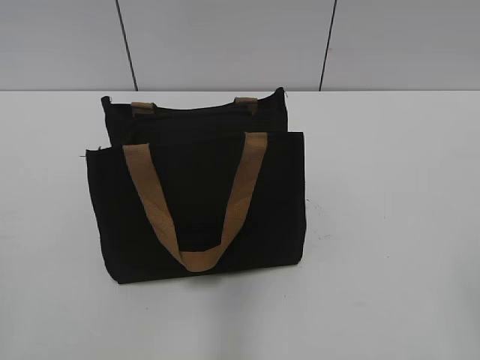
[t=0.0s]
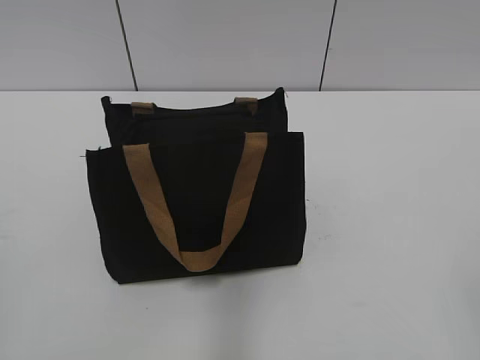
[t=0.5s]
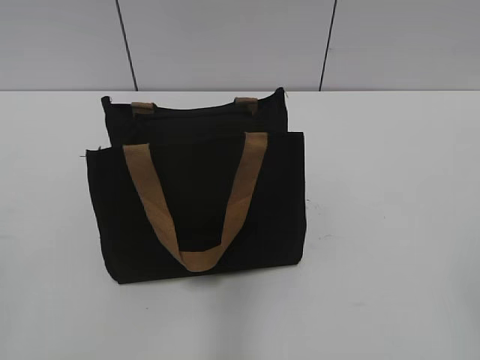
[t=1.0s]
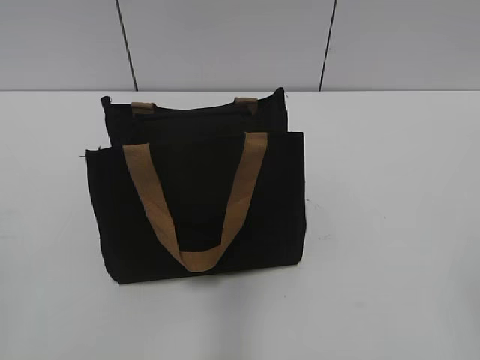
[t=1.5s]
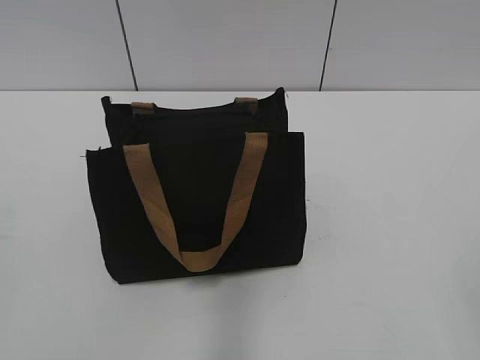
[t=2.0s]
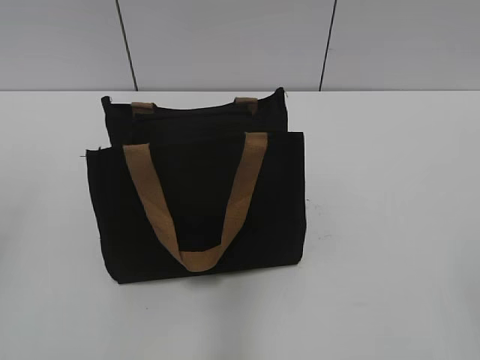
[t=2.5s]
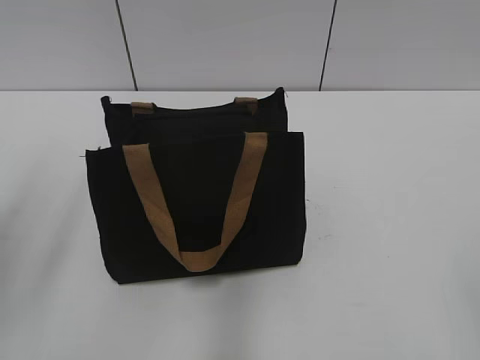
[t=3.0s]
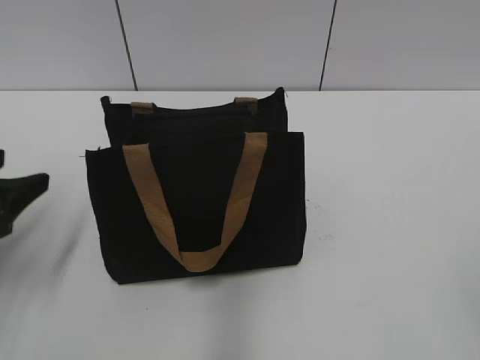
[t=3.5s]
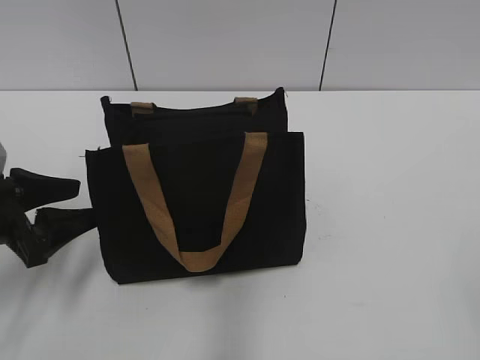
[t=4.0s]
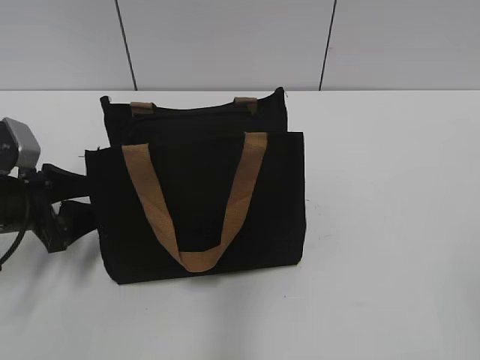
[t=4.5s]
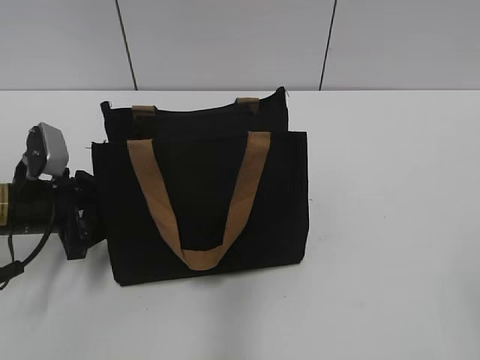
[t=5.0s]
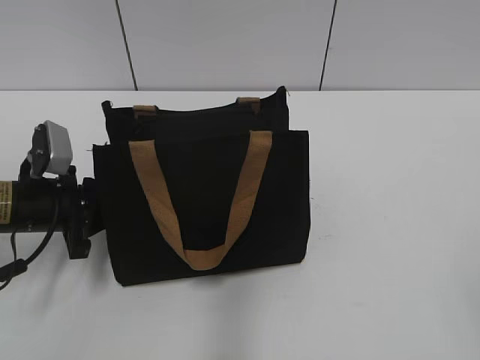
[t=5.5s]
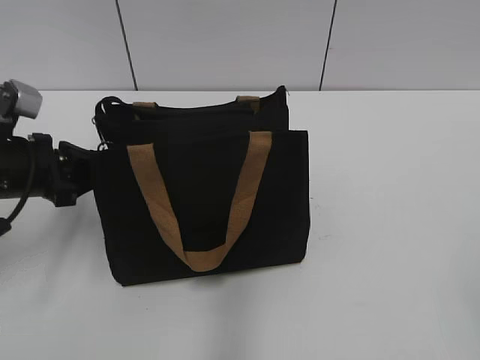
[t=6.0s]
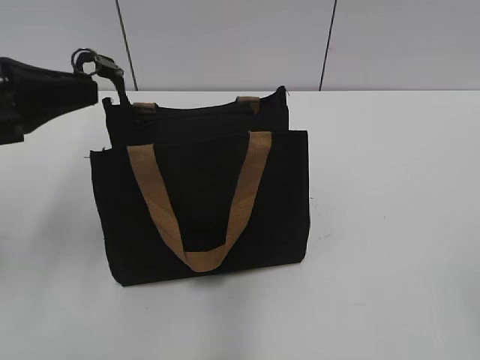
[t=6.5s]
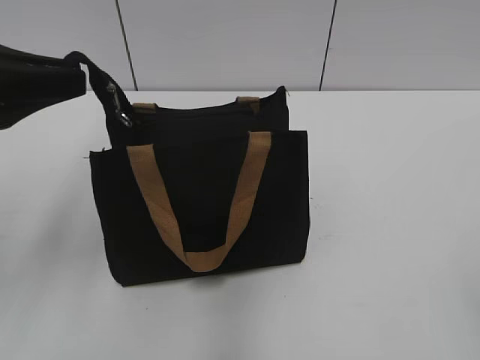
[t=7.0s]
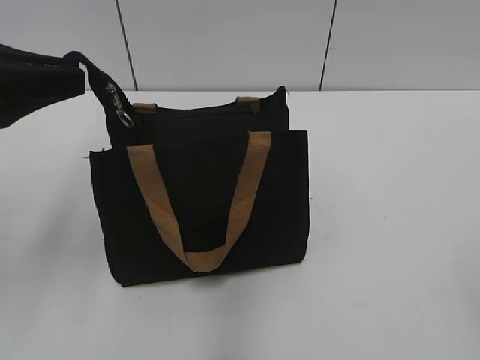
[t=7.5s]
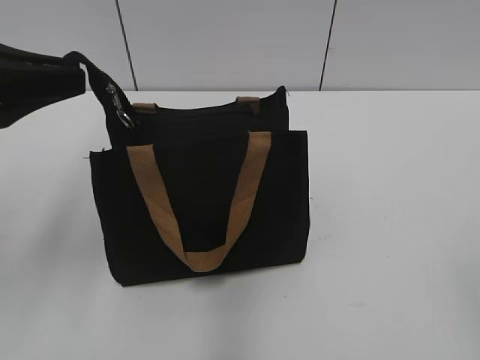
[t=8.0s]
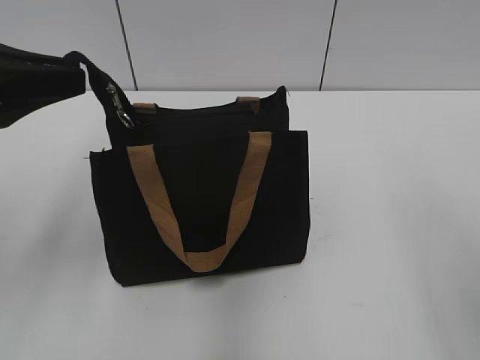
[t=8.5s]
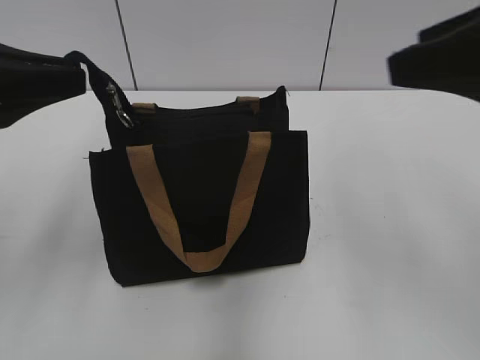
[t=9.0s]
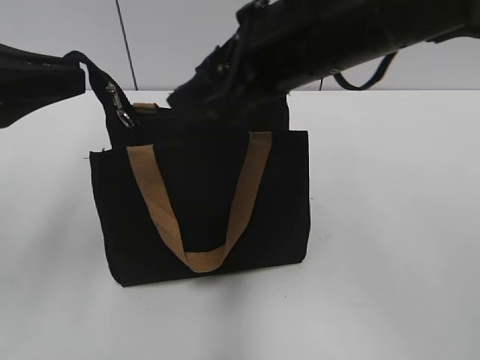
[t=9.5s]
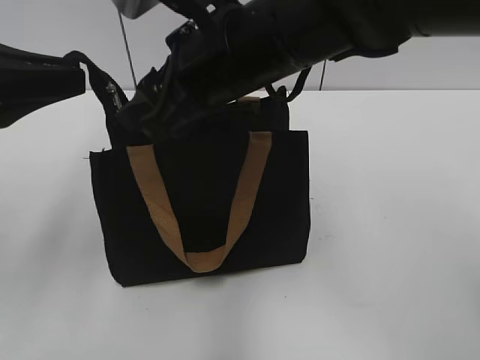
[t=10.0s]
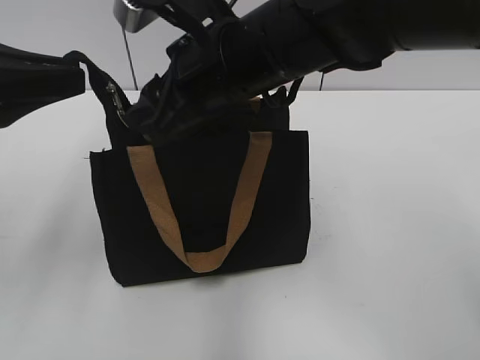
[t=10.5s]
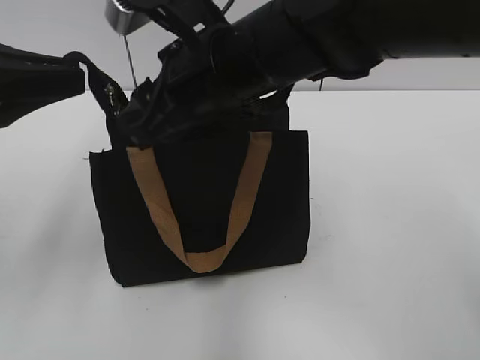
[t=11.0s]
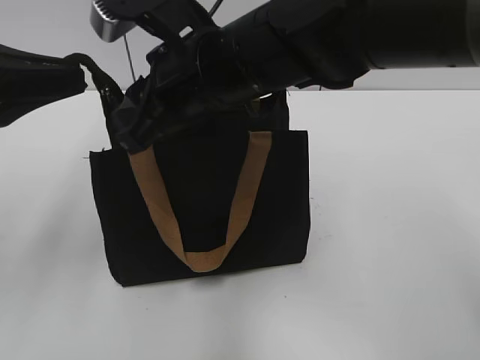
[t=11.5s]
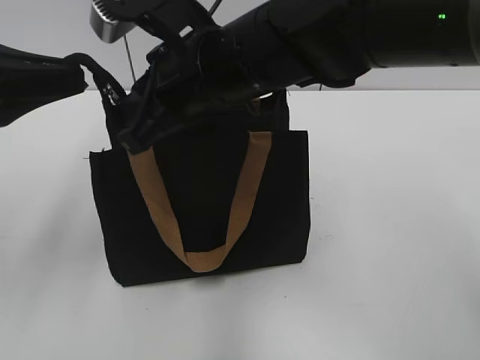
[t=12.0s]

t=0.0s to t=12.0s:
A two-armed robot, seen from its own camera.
t=2.0s to t=4.0s: The left gripper travels forward and downward by about 25 cm, and opens up.
t=4.0s to t=6.0s: The left gripper is displaced forward by about 5 cm, and closes up.
t=6.0s to t=8.0s: The left gripper travels upward and backward by some 15 cm.
t=8.0s to t=10.0s: The right gripper goes approximately 40 cm forward and to the left.
t=10.0s to t=12.0s: The right gripper closes its fingers.

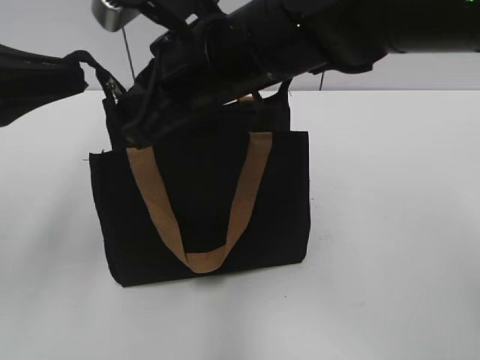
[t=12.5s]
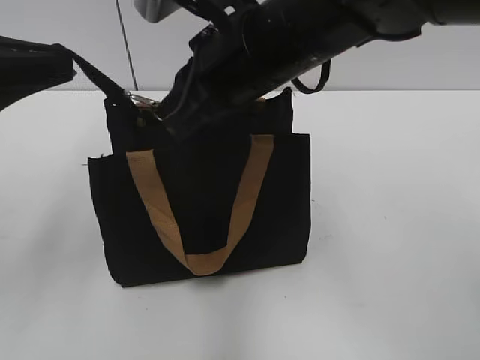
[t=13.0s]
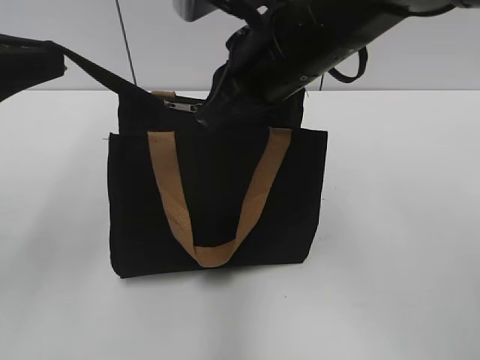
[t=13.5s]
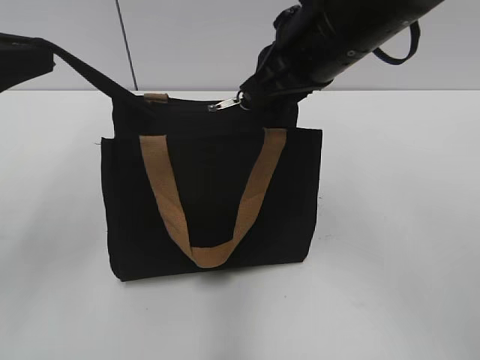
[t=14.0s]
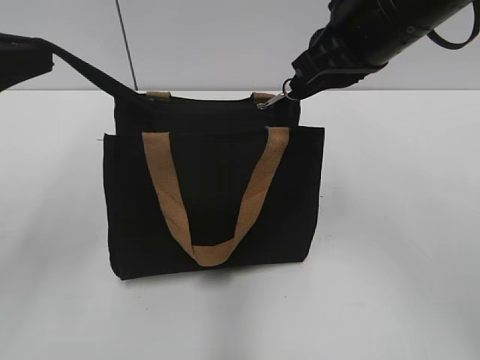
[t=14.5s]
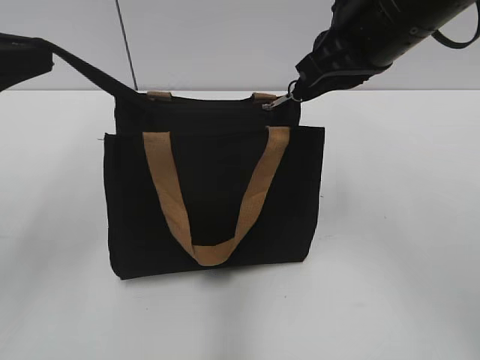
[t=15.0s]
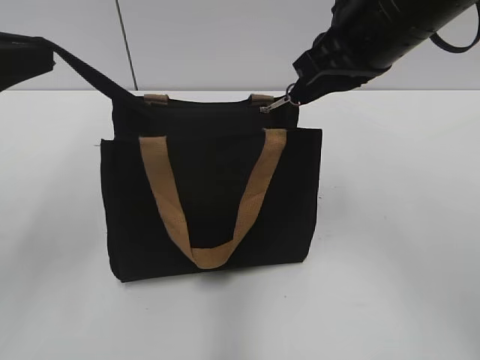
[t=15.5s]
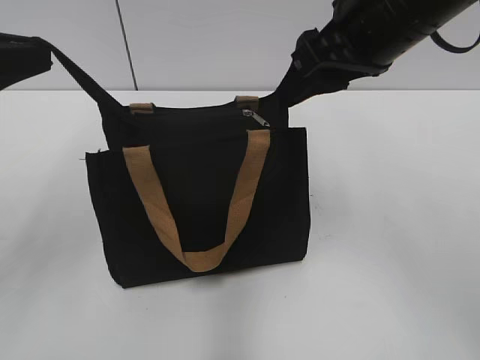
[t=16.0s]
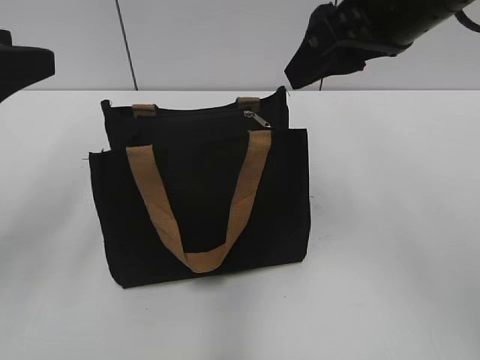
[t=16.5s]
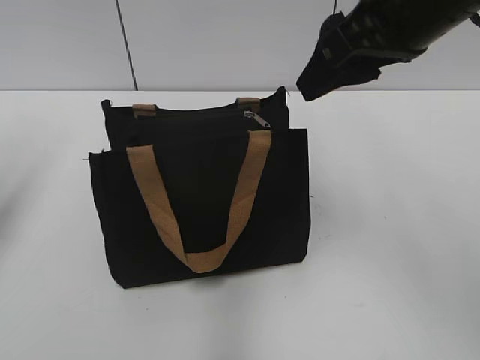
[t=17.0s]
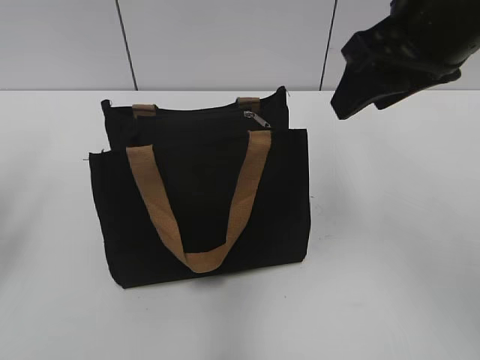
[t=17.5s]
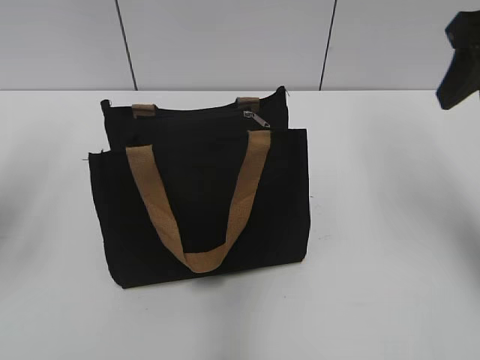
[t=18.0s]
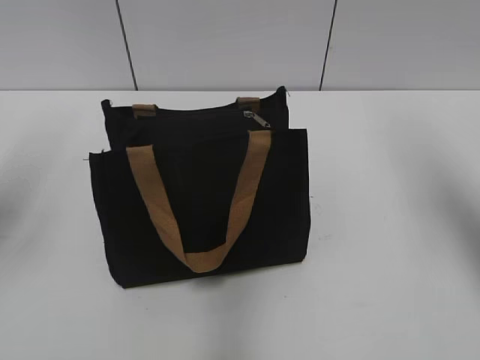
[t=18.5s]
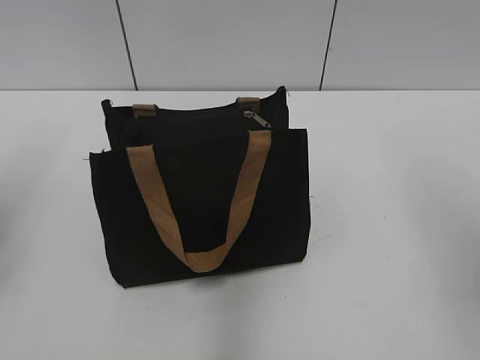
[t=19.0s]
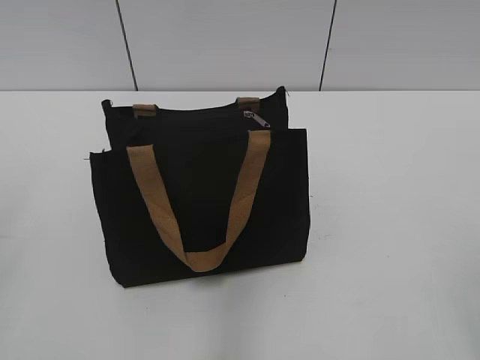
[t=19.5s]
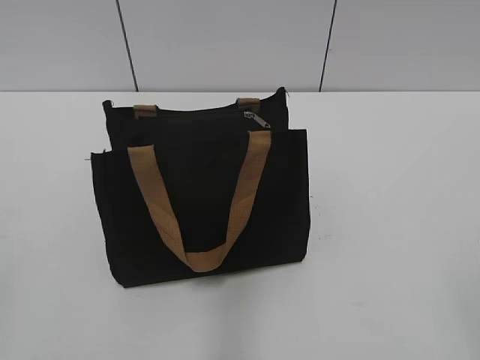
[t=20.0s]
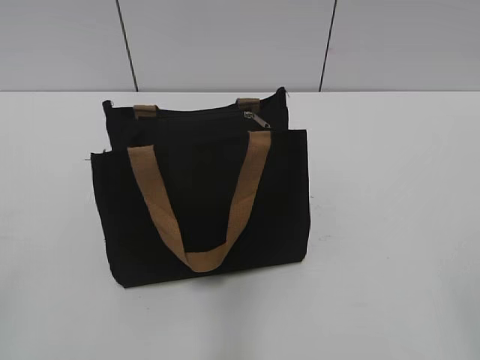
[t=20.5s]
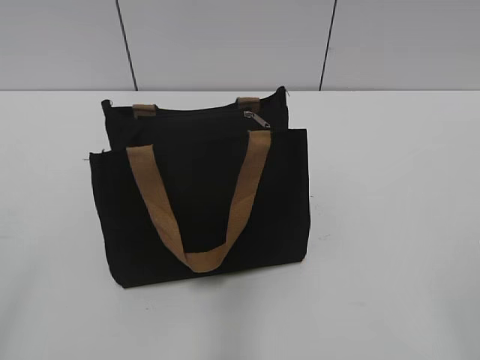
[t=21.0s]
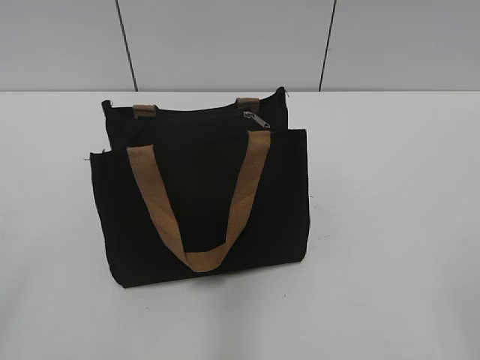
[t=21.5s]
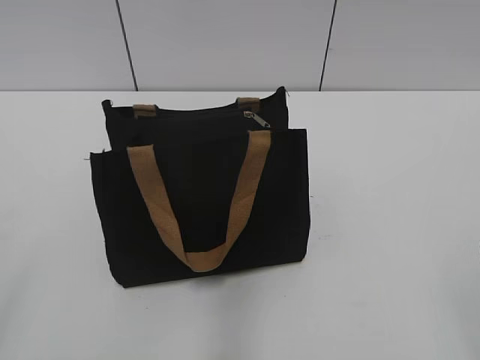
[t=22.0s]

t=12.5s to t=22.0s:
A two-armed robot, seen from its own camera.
Step, t=12.5s to t=15.5s: Zip up the bag with your right hand.
Step, t=16.0s to t=16.5s: Grab the zipper with your left hand.
t=12.5s to t=14.5s: The right gripper moves to the right, approximately 15 cm.
t=14.5s to t=16.5s: The left gripper opens, while the right gripper opens its fingers.
t=16.5s to t=18.0s: The right gripper moves to the right, roughly 10 cm.
t=18.0s to t=20.0s: The two grippers go approximately 25 cm backward.

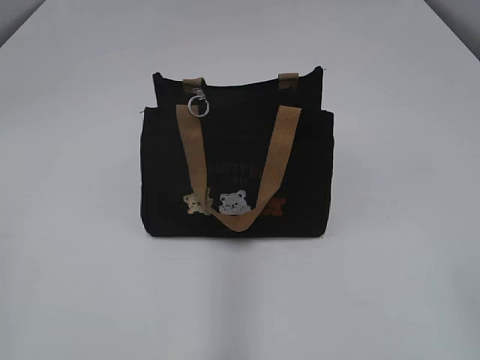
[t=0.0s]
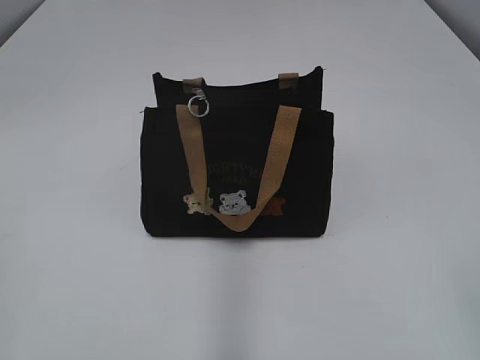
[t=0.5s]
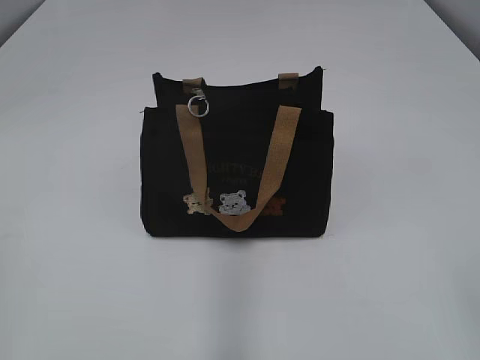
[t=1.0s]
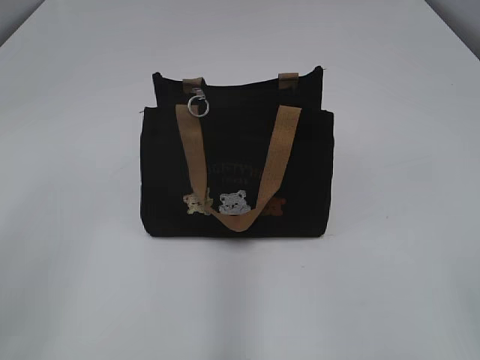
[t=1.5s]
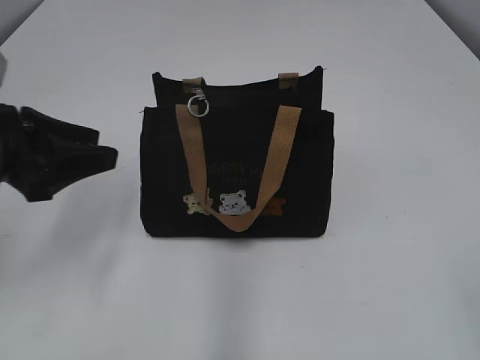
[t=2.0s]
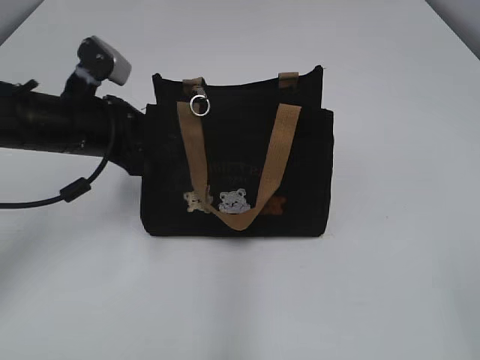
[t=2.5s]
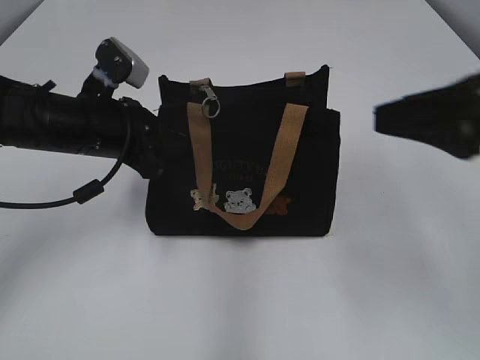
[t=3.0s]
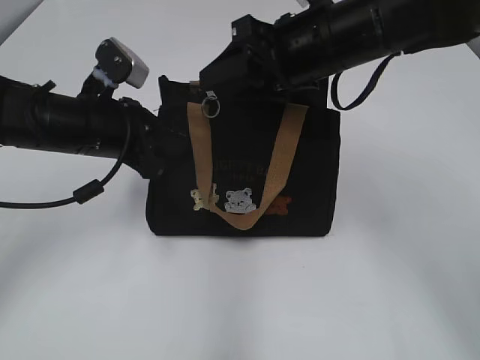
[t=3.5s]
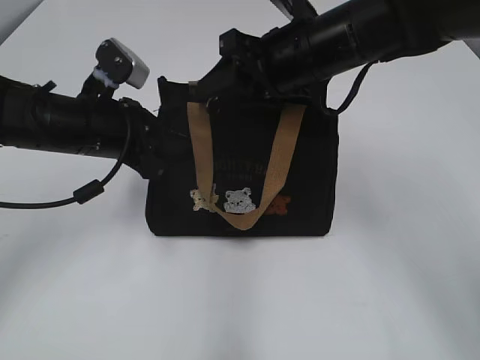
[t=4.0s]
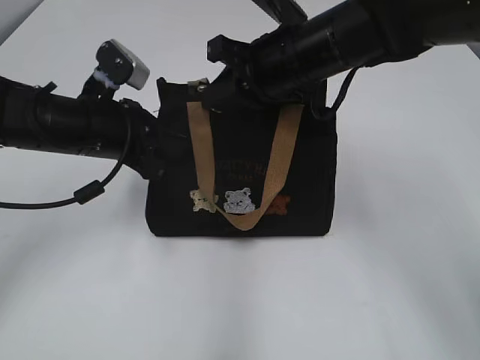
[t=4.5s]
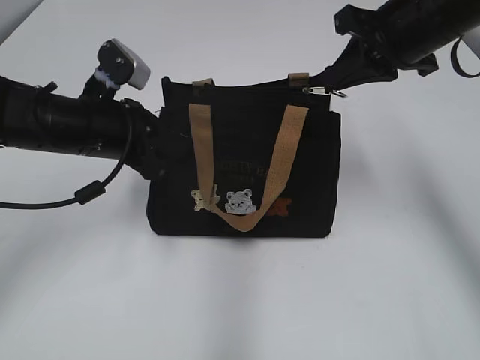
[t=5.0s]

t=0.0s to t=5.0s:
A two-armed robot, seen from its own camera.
t=2.5s to t=5.0s: The right gripper travels forward by about 35 cm, and closes its fingers; the left gripper closes.
